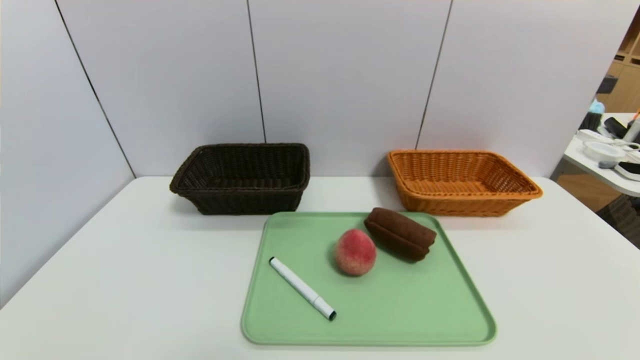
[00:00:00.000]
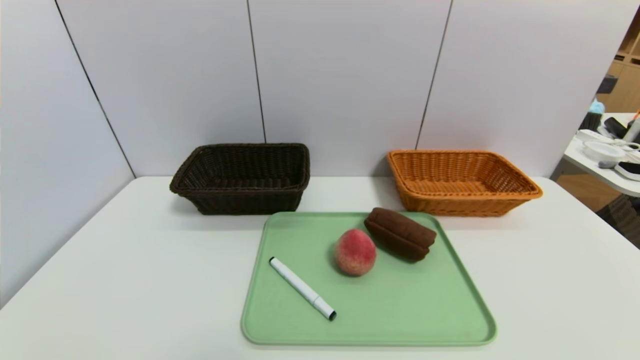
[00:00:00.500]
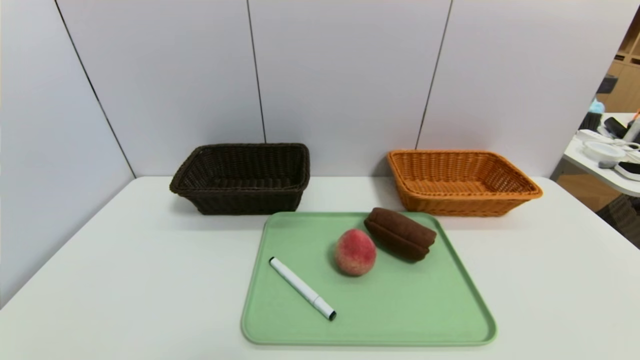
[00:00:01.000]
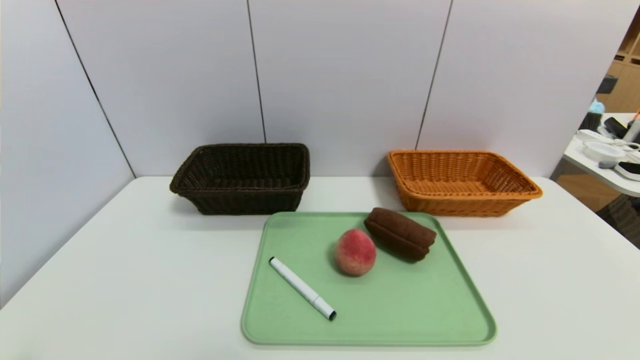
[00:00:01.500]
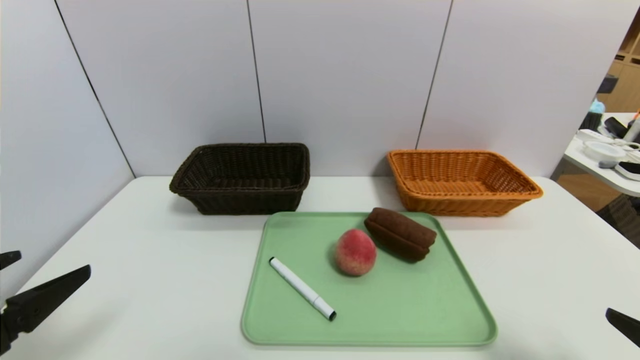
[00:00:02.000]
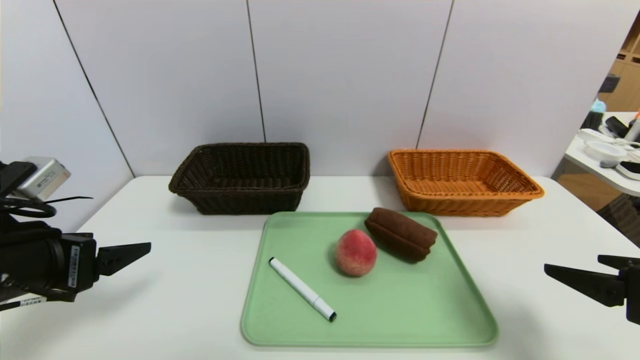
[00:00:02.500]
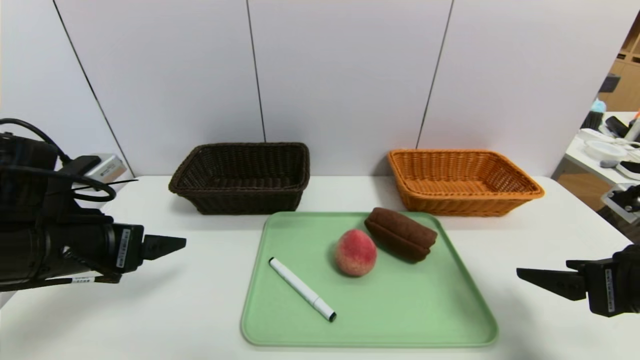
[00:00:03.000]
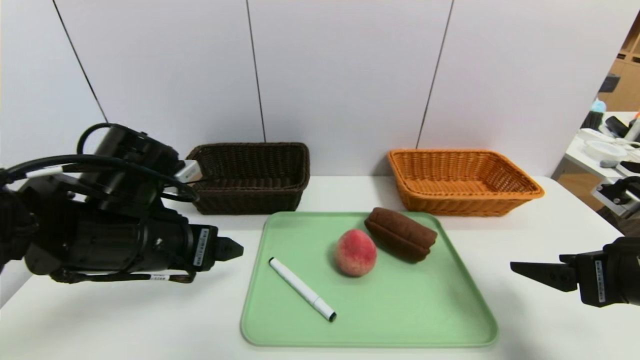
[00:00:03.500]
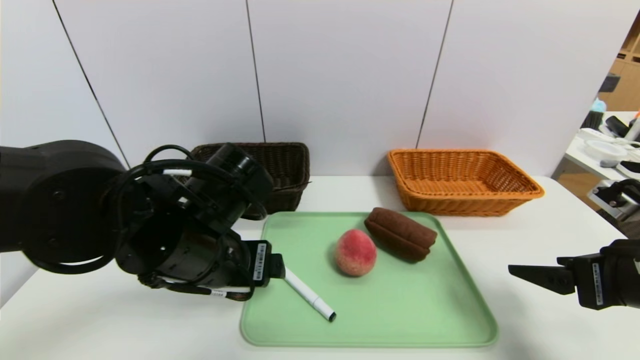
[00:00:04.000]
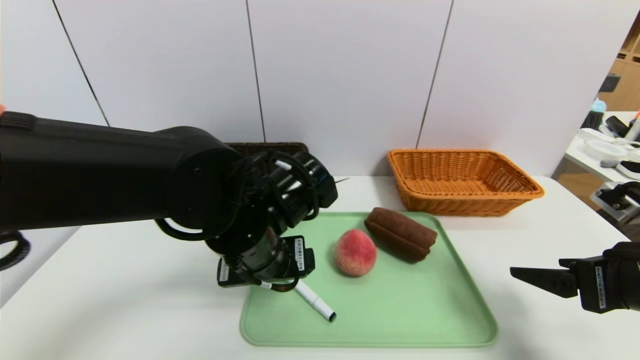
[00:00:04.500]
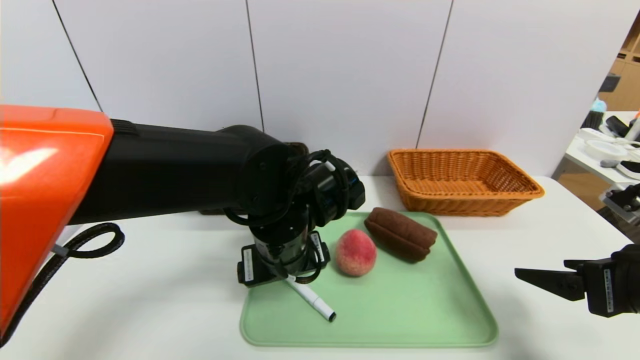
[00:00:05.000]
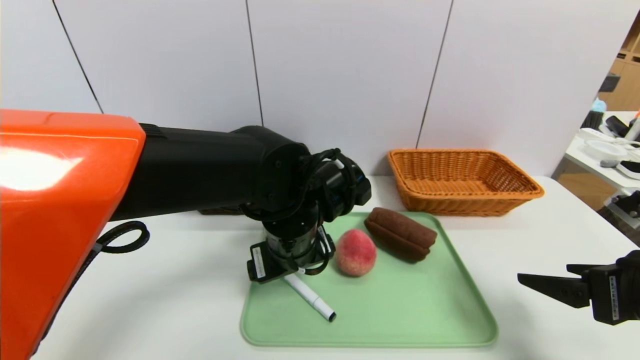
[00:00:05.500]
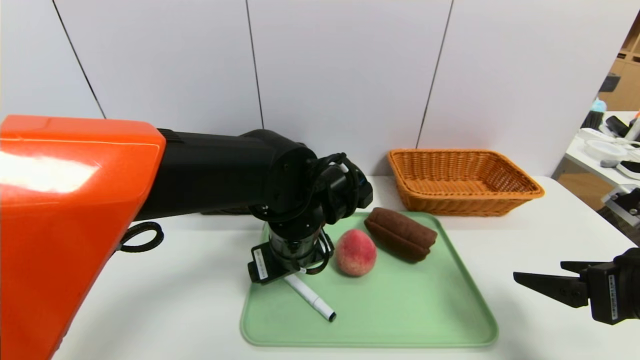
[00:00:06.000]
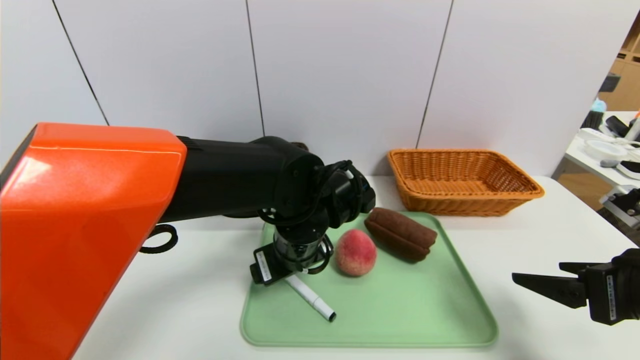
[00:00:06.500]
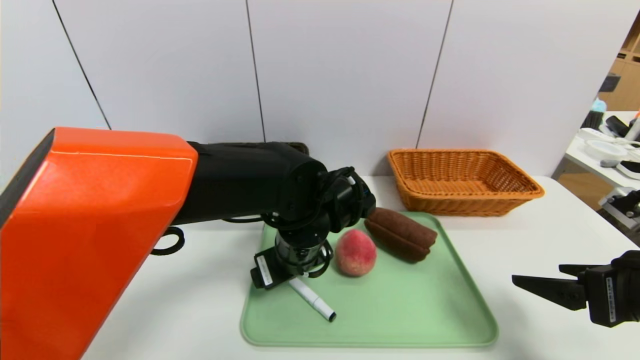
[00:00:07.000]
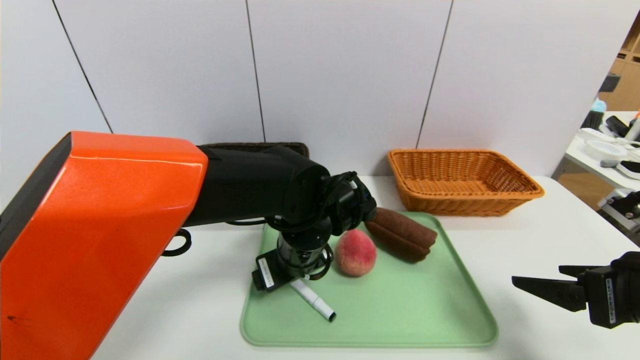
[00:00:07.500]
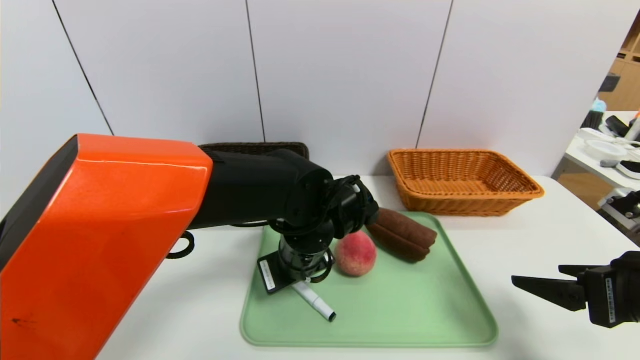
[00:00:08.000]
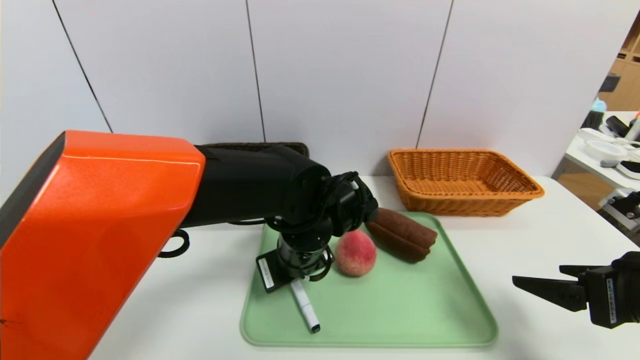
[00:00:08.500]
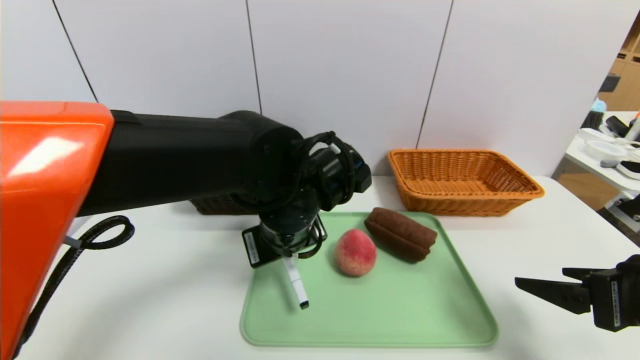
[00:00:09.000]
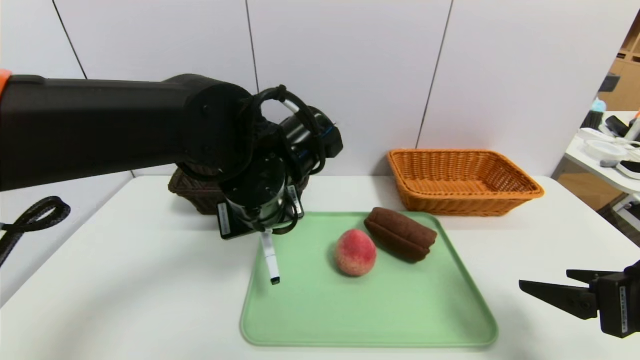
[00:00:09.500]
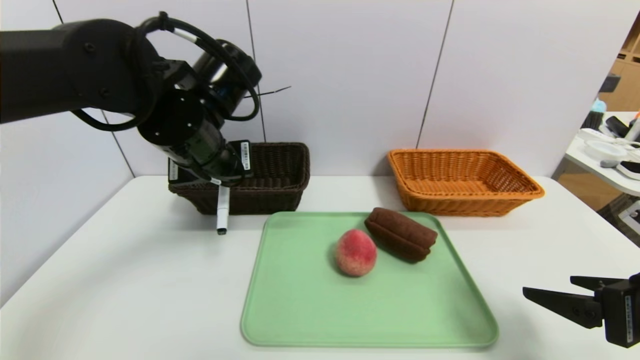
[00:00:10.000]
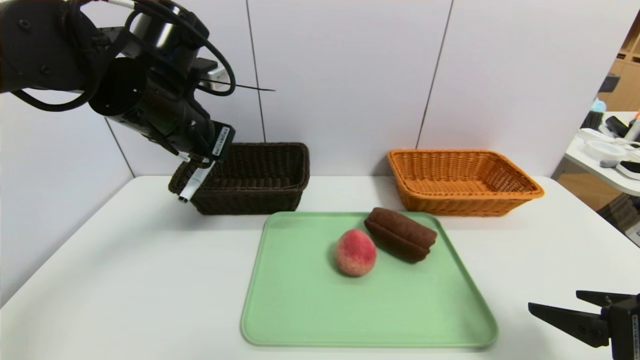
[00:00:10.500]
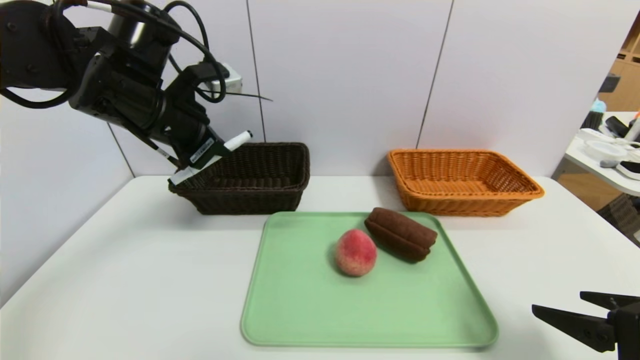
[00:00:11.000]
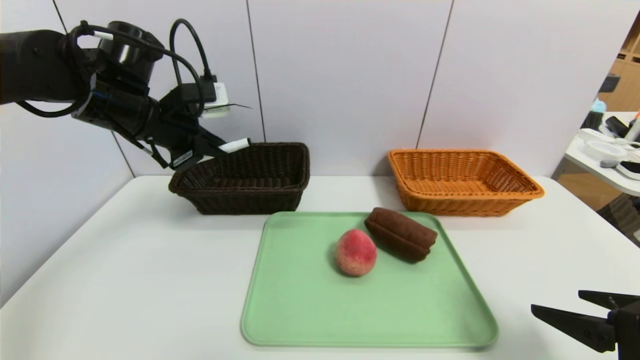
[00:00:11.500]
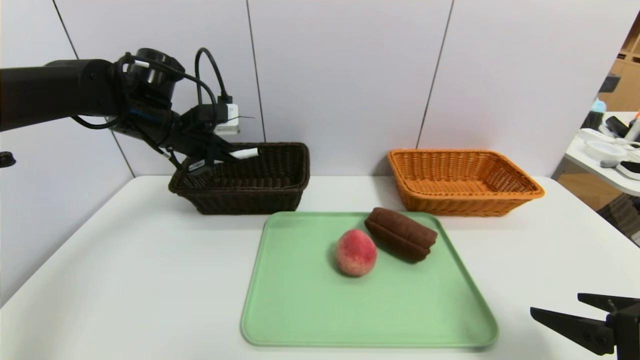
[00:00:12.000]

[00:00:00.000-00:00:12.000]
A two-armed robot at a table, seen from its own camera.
Task of the whole recording: place the food in the right basket with the right gripper, and place the non food items in the left basket with the left gripper.
00:00:00.000 to 00:00:02.000: Both grippers move upward and forward, approximately 15 cm.
00:00:02.000 to 00:00:04.000: The left gripper heads to the right and forward, covering roughly 25 cm. Meanwhile the right gripper heads forward, covering approximately 10 cm.
00:00:04.000 to 00:00:06.000: The left gripper shifts some 10 cm to the right and forward.
00:00:06.000 to 00:00:08.000: The left gripper closes its fingers.
00:00:08.000 to 00:00:10.000: The left gripper moves upward and to the left, some 20 cm, and closes up.
00:00:10.000 to 00:00:12.000: The left gripper shifts roughly 15 cm forward and to the left.

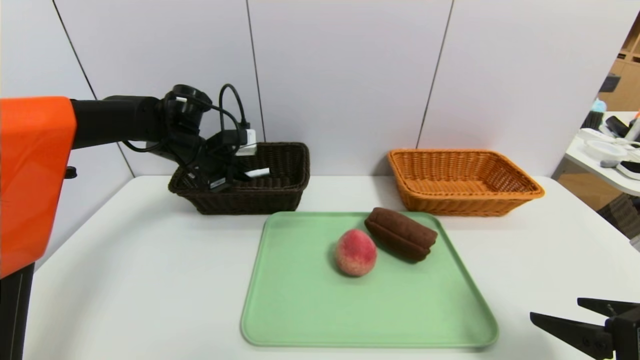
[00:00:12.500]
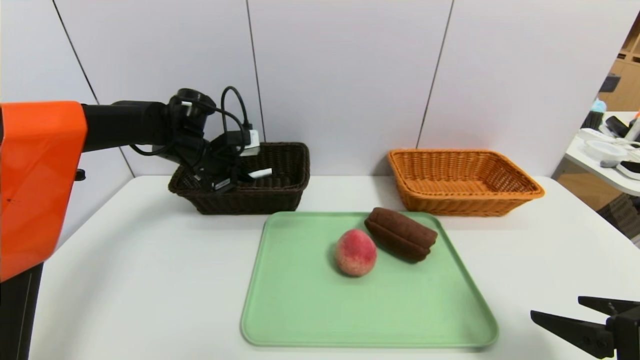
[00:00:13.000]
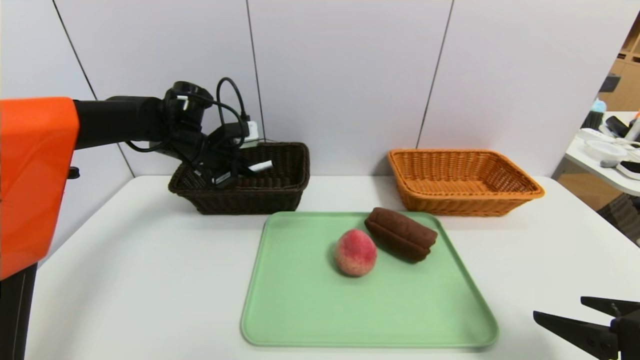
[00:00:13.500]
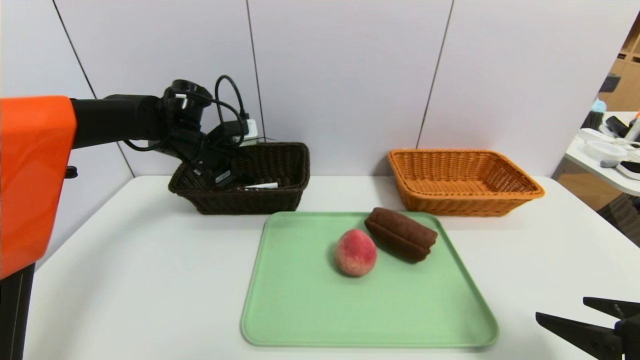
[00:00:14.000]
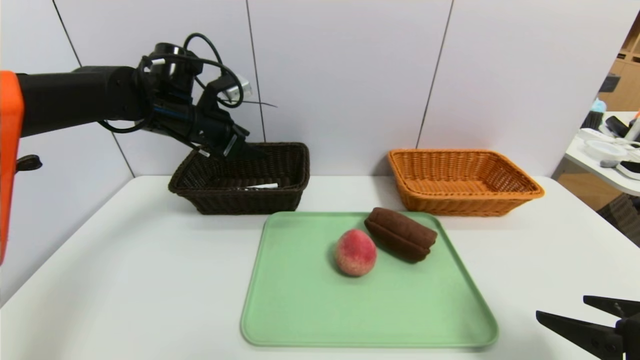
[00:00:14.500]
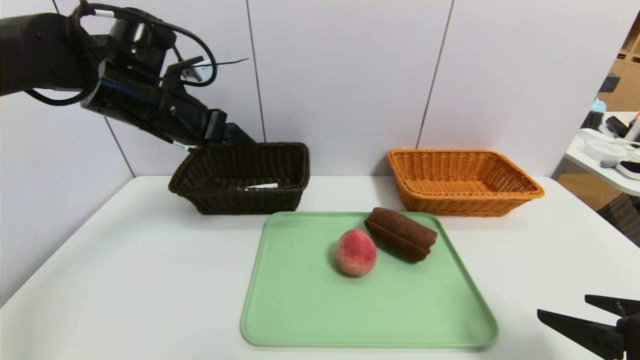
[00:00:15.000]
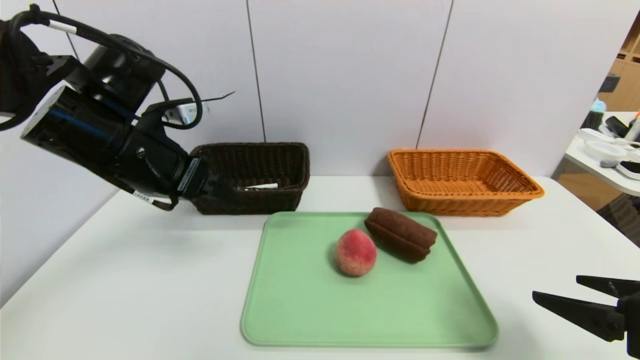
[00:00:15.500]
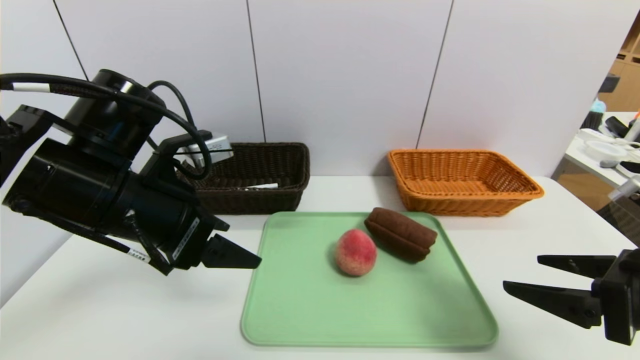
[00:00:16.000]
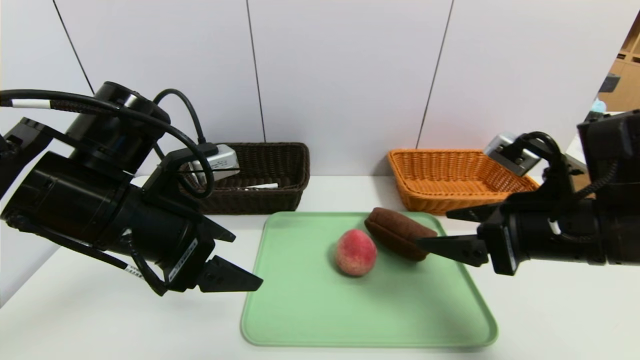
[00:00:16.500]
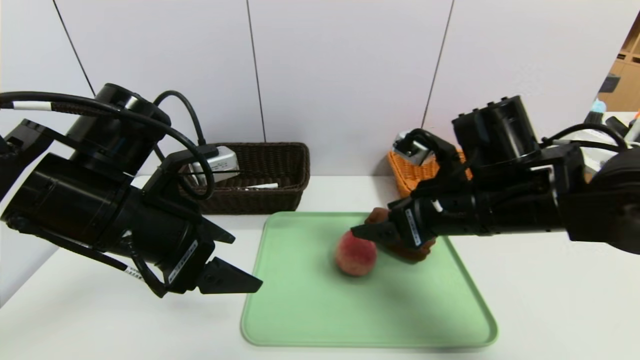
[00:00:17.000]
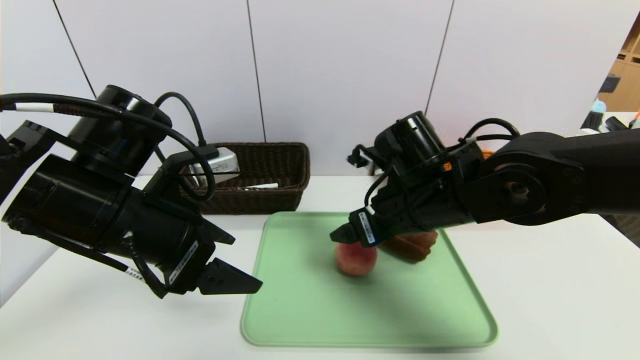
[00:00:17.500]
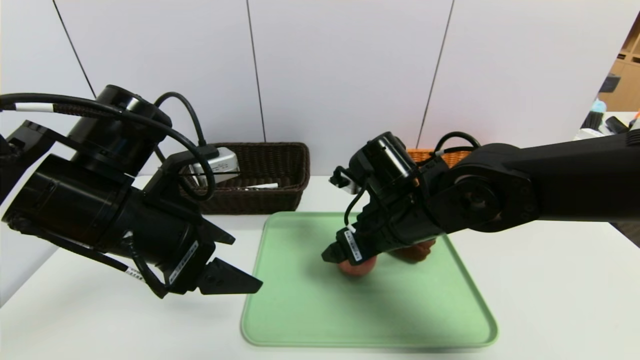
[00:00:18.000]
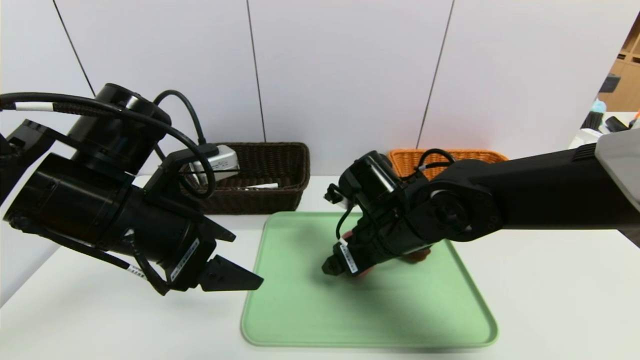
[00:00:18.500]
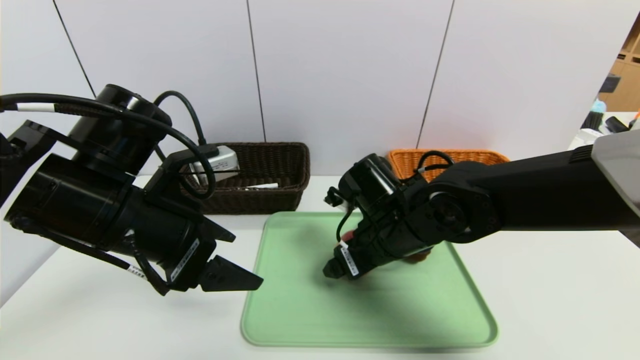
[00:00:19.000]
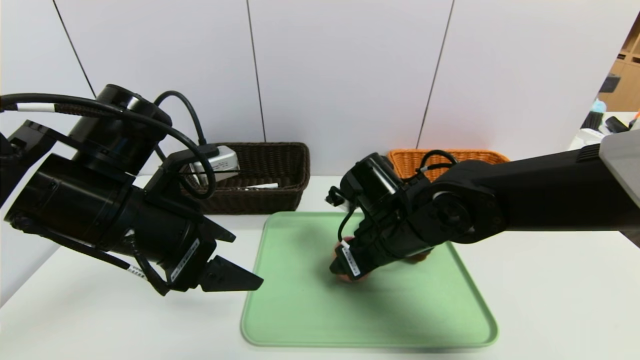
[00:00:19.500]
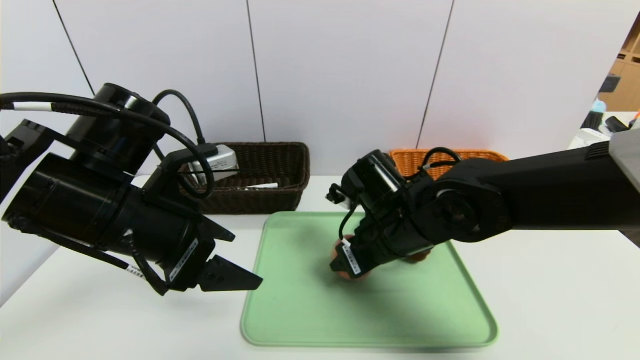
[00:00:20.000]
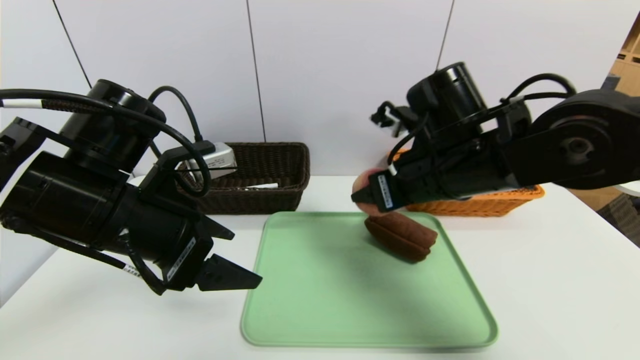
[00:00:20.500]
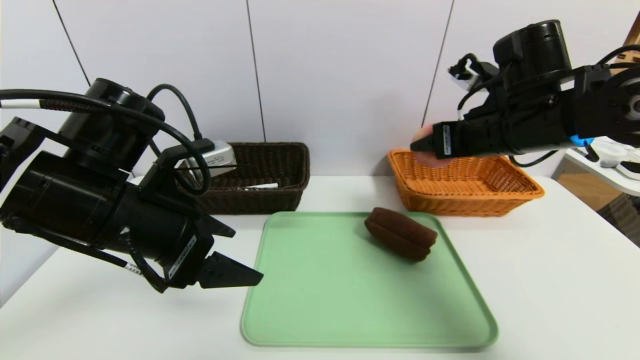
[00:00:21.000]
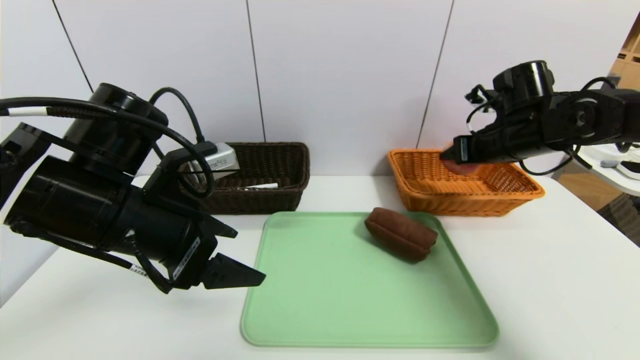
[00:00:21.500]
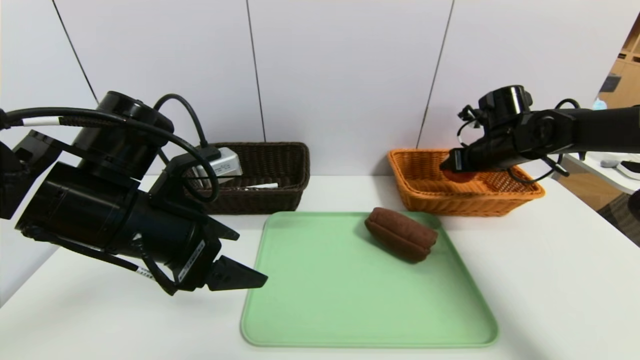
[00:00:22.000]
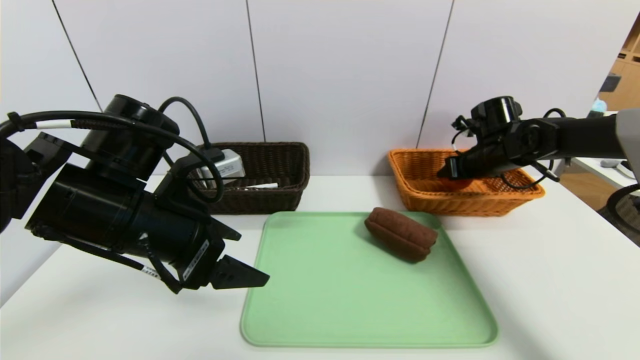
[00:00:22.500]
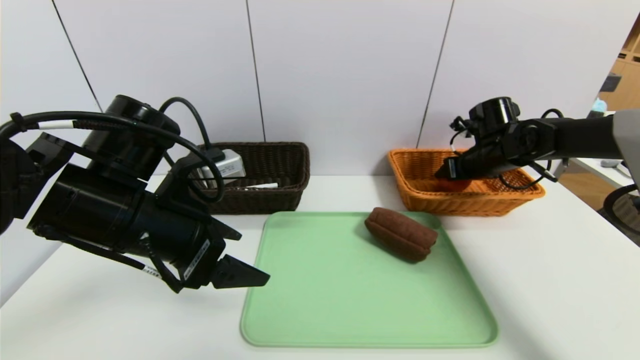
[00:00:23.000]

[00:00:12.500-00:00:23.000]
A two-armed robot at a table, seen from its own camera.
Task of the whole recording: place the food in the right basket with the right gripper, and place the non food items in the left basket with the left gripper.
00:00:12.500 to 00:00:14.500: The left gripper is displaced upward by approximately 5 cm, and opens up.
00:00:14.500 to 00:00:16.500: The right gripper moves forward, to the left and upward, roughly 15 cm. Meanwhile the left gripper is displaced backward by some 20 cm.
00:00:16.500 to 00:00:19.000: The right gripper travels to the left, downward and forward by about 20 cm.
00:00:19.000 to 00:00:21.000: The right gripper travels to the right and upward by approximately 20 cm, and closes up.
00:00:21.000 to 00:00:23.000: The right gripper travels forward, downward and to the right by approximately 20 cm.
